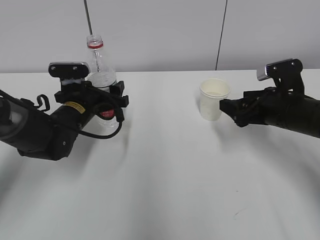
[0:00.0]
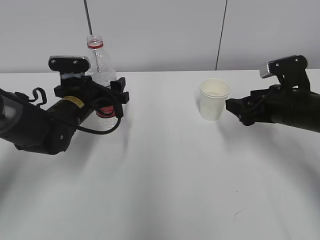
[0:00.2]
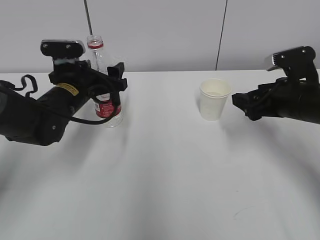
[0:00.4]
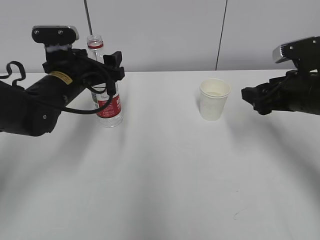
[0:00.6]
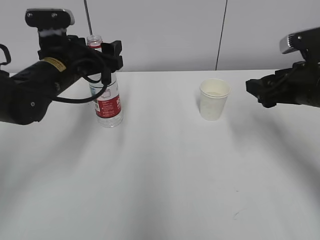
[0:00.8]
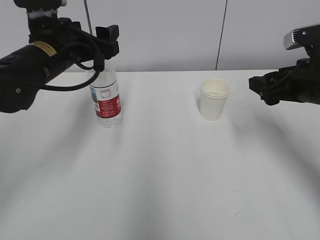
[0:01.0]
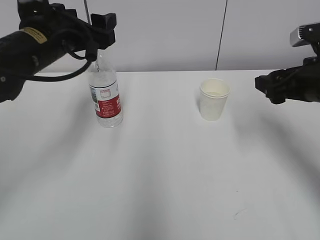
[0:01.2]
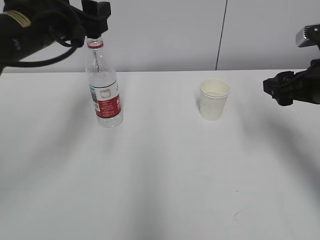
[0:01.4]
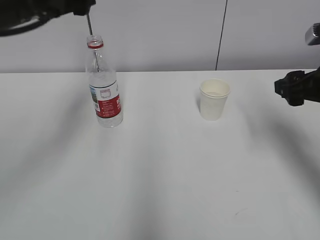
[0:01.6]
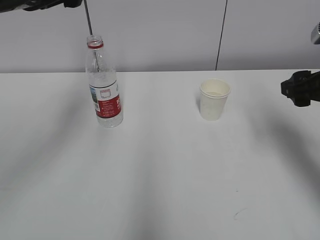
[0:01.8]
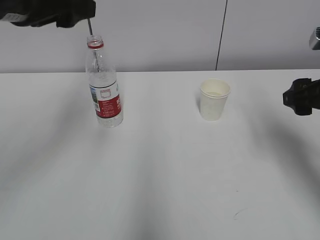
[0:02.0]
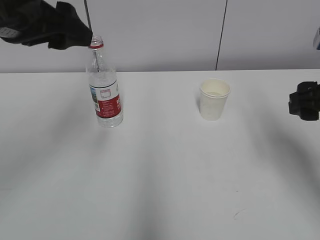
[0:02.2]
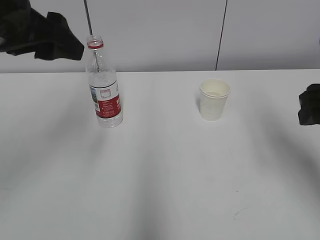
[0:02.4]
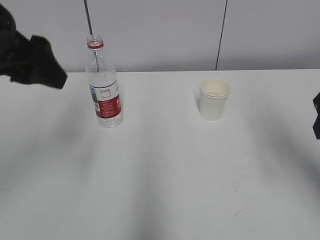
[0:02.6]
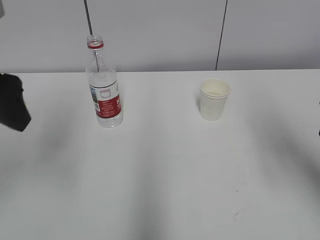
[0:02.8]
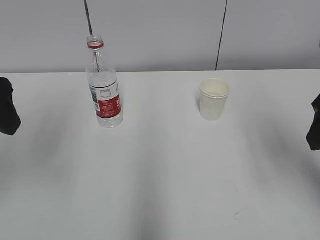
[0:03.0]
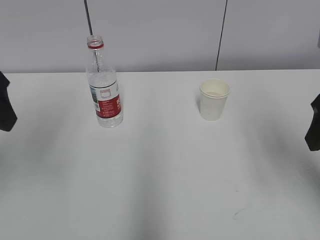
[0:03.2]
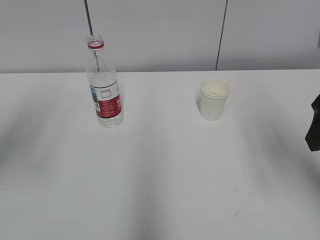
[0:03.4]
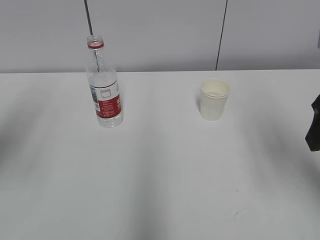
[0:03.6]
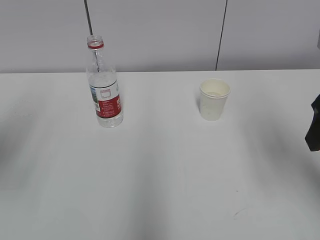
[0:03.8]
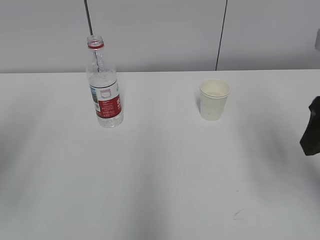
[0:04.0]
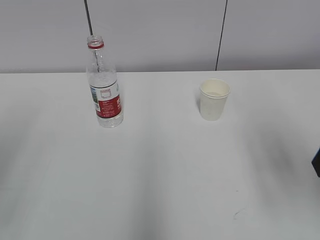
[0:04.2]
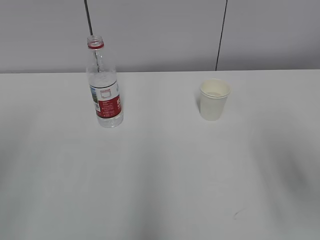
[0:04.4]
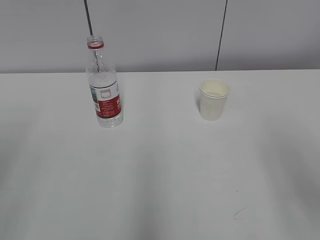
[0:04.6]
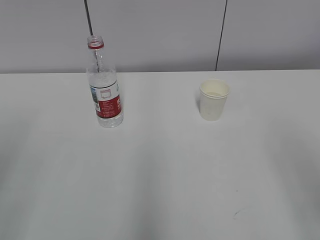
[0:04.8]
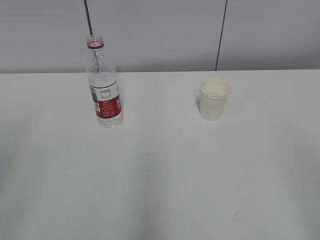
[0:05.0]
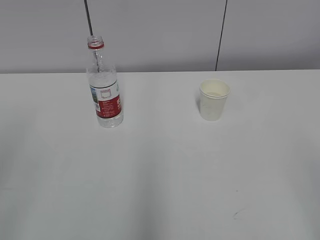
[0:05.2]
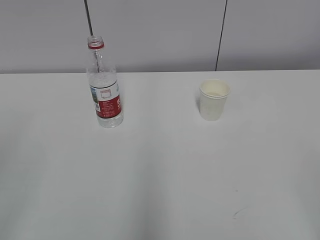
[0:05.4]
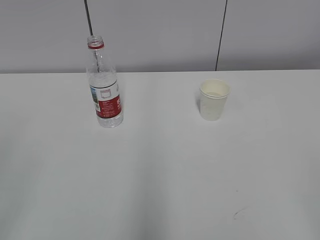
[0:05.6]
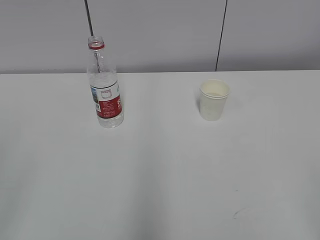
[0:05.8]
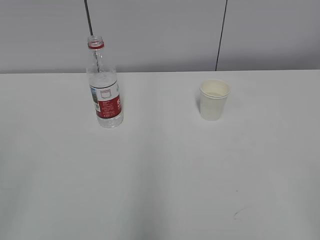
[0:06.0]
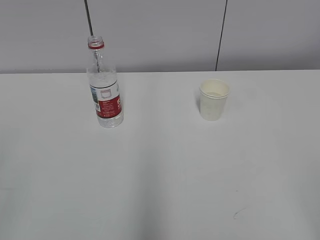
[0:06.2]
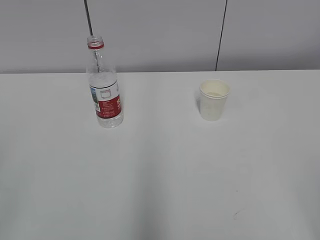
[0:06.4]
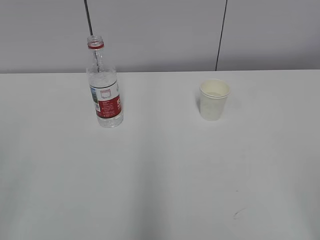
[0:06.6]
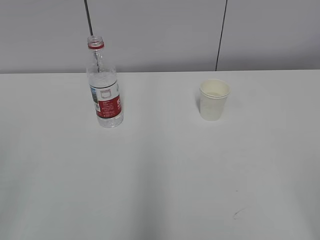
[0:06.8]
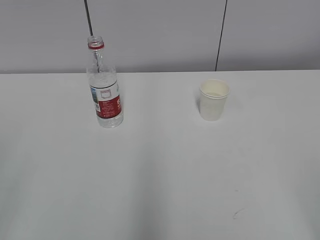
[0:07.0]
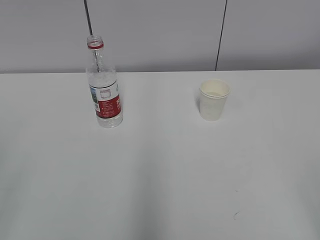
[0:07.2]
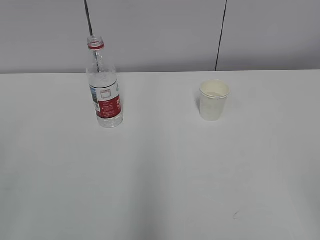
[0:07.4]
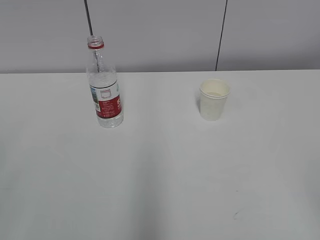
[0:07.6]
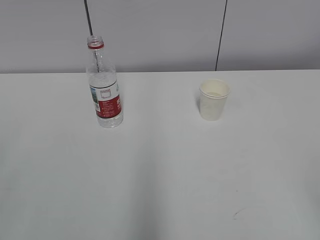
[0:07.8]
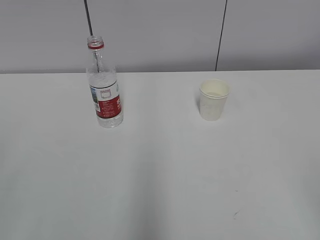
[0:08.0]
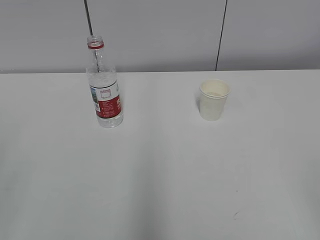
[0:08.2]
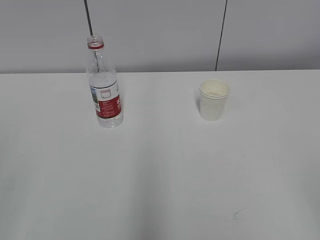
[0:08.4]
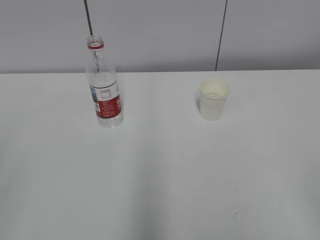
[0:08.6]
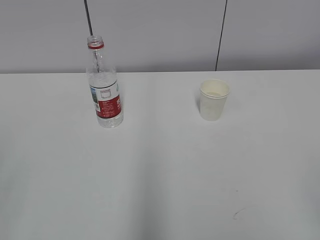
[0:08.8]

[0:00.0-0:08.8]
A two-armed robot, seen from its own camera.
0:00.0 to 0:01.4: The left gripper is displaced upward by about 20 cm, while the right gripper travels upward by some 10 cm.
0:01.4 to 0:03.0: The left gripper shifts about 15 cm backward and to the left. The right gripper travels backward and upward by about 10 cm.
0:03.0 to 0:04.4: The left gripper travels backward and to the left by some 15 cm; the right gripper travels backward by approximately 5 cm.
0:04.4 to 0:05.8: The right gripper goes about 15 cm backward.
0:07.4 to 0:08.8: Both grippers stay about where they are.

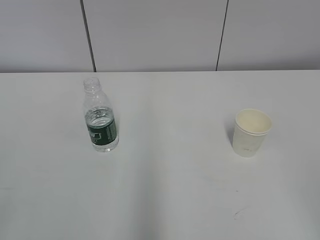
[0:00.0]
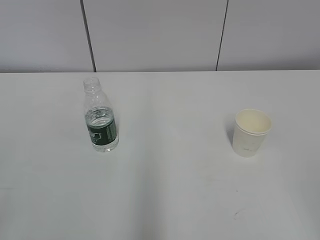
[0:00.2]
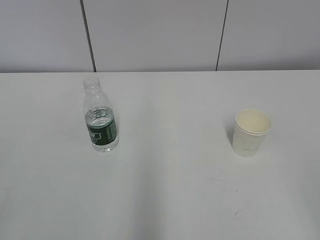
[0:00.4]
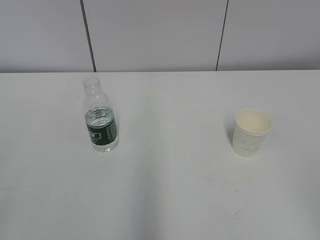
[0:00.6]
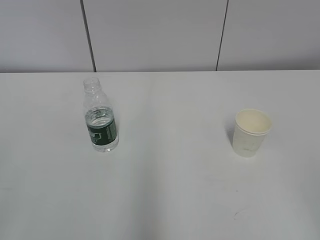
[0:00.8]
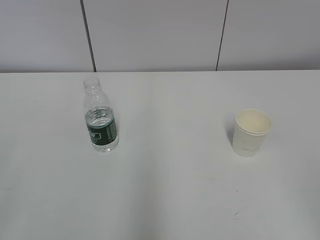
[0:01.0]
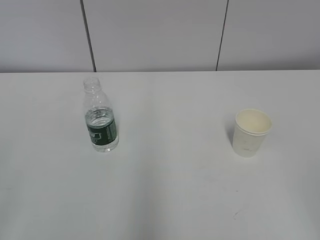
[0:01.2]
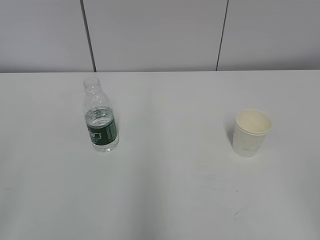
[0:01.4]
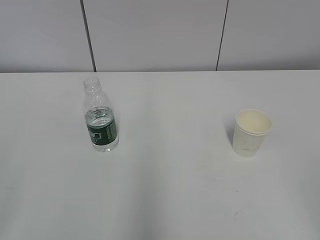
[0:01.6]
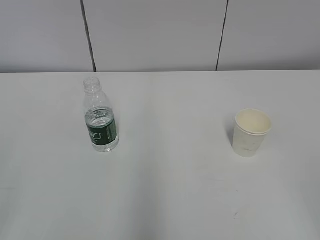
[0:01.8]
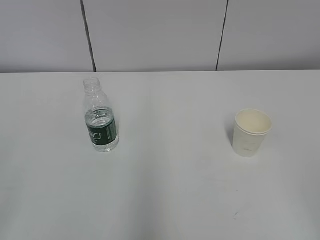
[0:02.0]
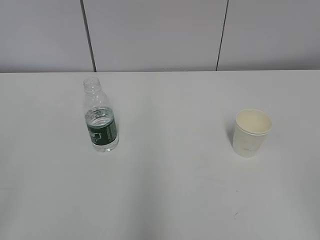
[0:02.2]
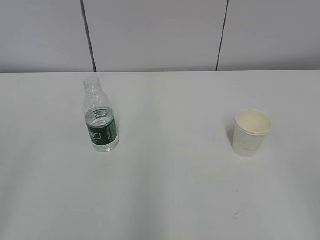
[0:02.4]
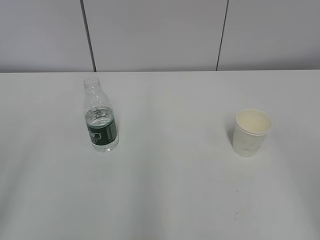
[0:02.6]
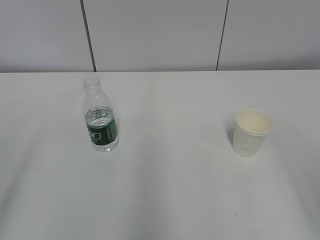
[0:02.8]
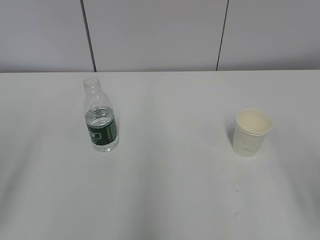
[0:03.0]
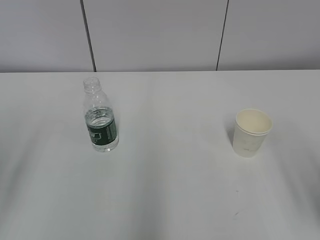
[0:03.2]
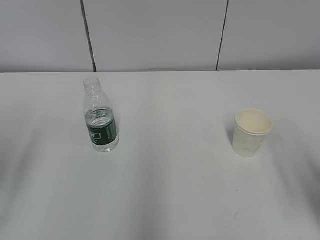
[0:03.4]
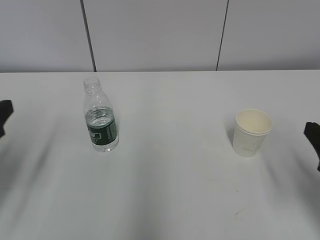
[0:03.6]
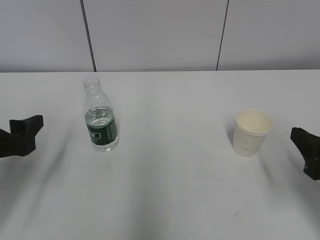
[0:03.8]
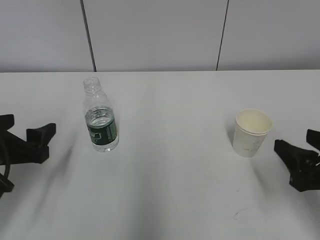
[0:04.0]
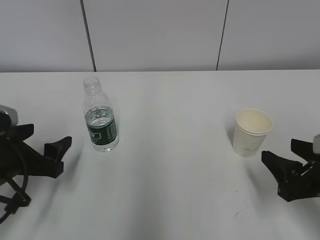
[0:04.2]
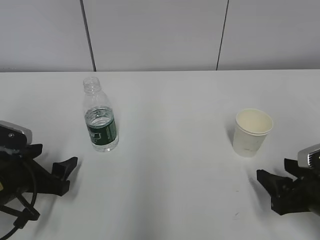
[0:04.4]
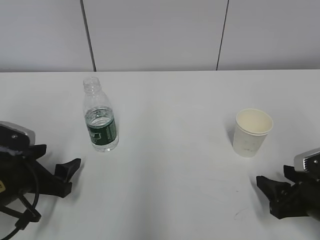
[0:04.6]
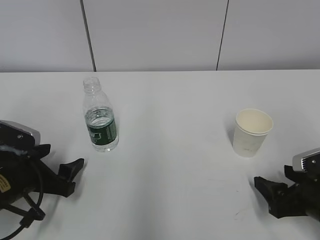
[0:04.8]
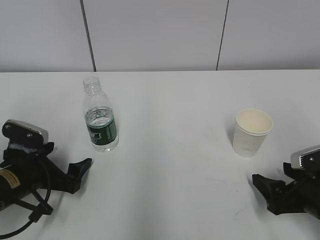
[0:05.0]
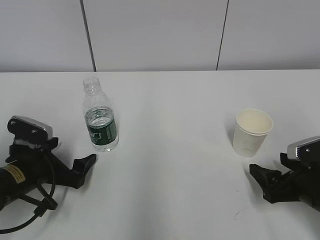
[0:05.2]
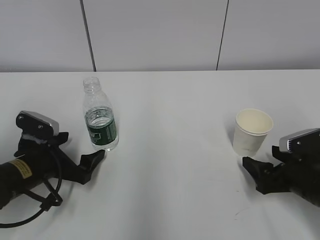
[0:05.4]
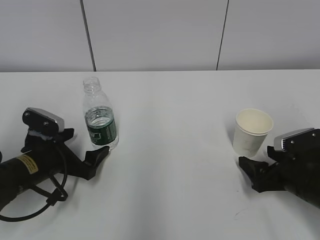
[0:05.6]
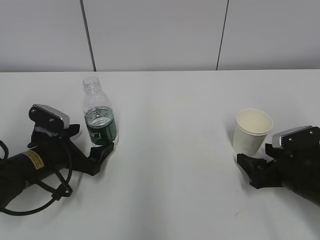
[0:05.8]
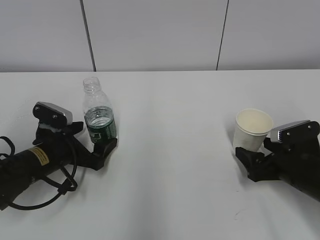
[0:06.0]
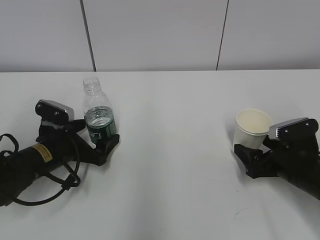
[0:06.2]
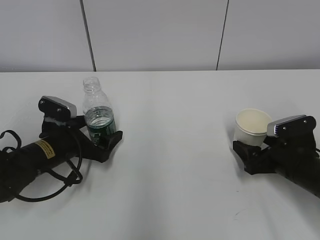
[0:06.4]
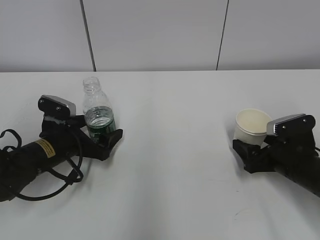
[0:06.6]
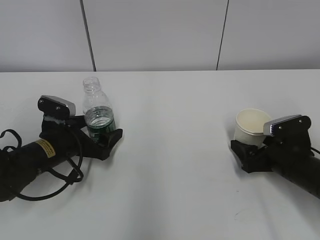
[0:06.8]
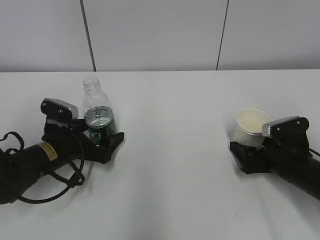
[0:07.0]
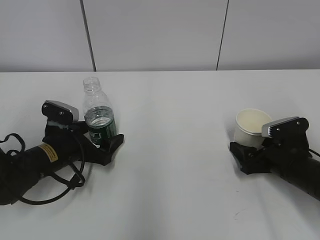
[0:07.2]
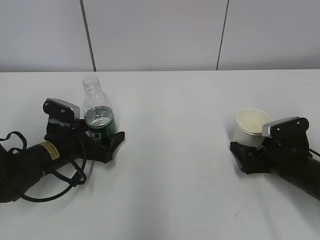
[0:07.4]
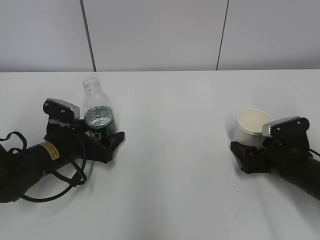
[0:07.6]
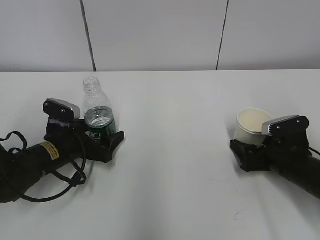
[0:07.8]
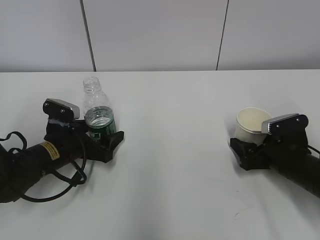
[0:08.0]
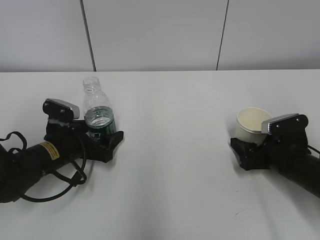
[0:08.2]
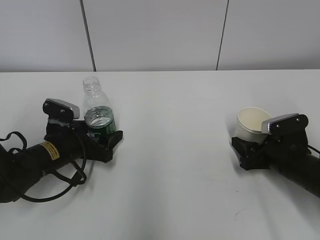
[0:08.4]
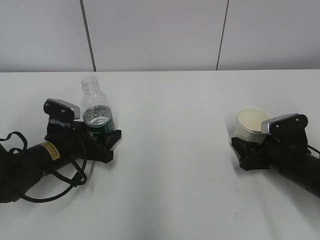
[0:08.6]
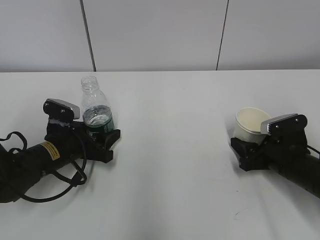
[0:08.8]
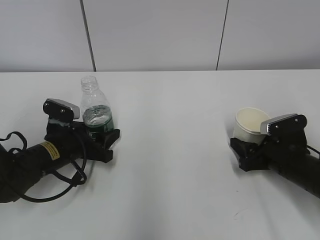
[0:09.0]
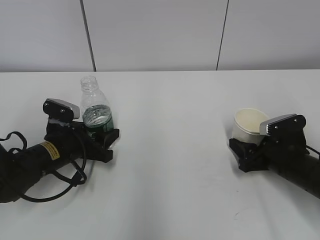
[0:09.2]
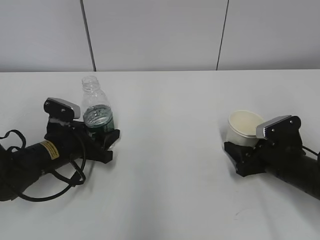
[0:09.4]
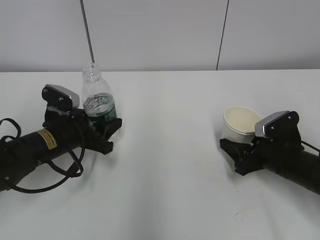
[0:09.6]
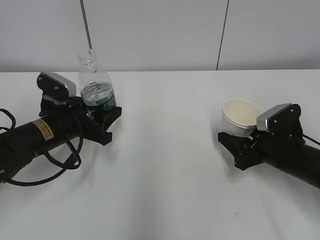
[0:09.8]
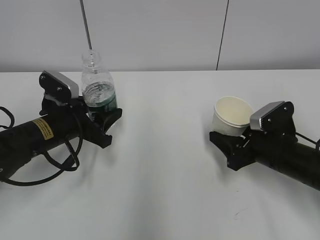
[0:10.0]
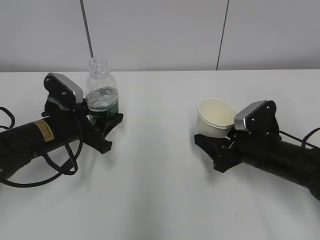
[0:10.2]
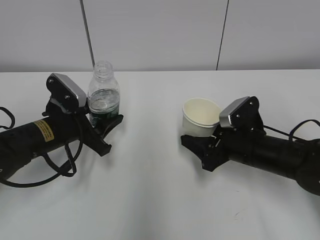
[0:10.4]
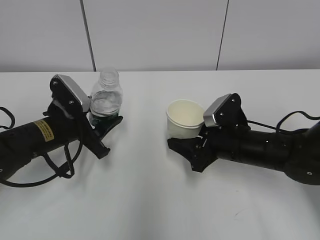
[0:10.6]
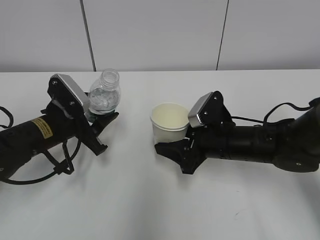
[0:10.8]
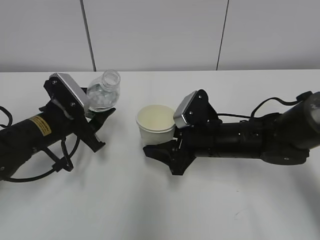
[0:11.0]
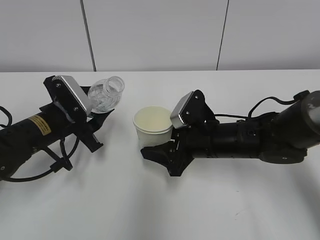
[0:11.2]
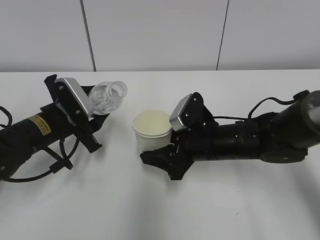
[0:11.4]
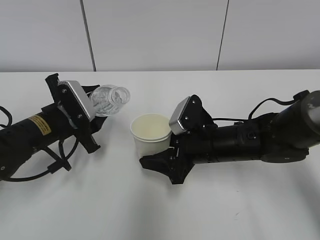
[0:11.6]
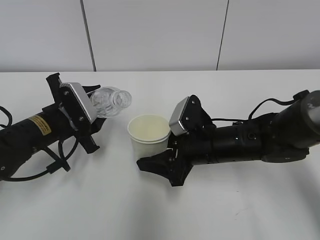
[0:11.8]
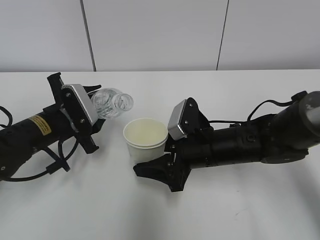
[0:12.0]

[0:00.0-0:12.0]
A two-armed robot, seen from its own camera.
Step, 0:00.0 to 0:07.4: Grab the paper cup with the right hand.
Step, 0:07.8 to 0:11.6: Lift the paper cup with the right hand.
0:03.0 to 0:04.4: The two grippers go about 20 cm downward and forward.
0:04.4 to 0:06.0: The two grippers go about 5 cm forward. The left gripper opens up, while the right gripper opens its fingers.
0:06.0 to 0:07.6: The grippers stay close to where they were, moving slightly.
0:07.6 to 0:09.0: The left gripper closes, while the right gripper closes its fingers.
0:09.0 to 0:10.4: The right gripper heads to the left, covering roughly 10 cm. The left gripper heads upward, covering approximately 5 cm.
0:10.4 to 0:12.0: The right gripper is displaced to the left by some 10 cm.

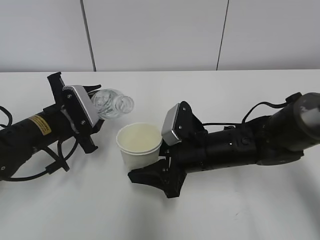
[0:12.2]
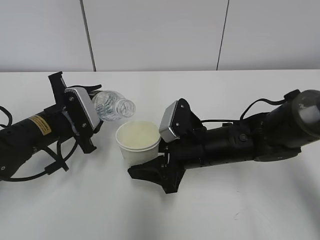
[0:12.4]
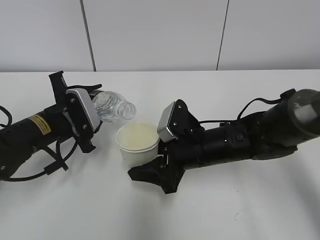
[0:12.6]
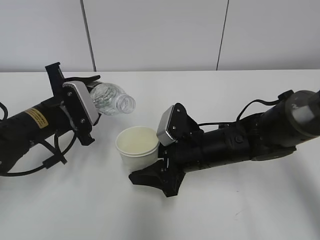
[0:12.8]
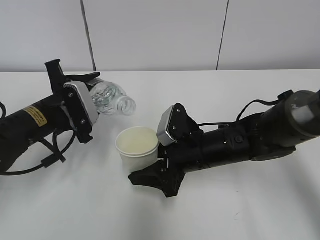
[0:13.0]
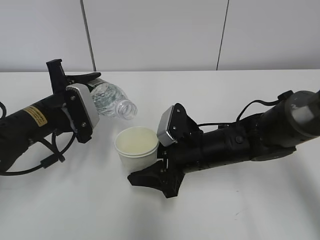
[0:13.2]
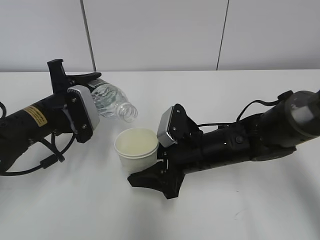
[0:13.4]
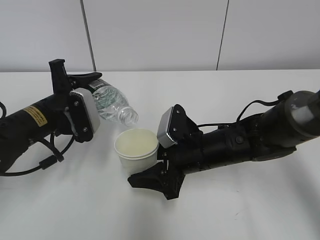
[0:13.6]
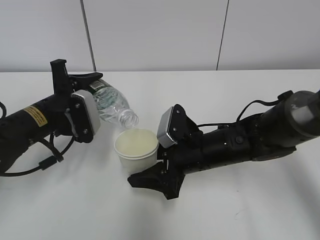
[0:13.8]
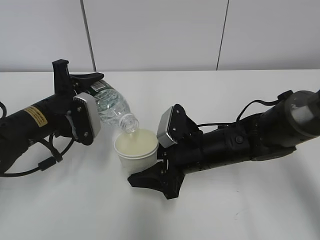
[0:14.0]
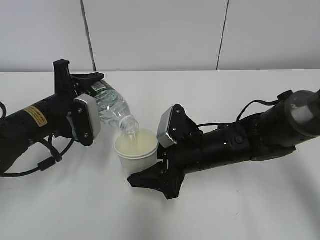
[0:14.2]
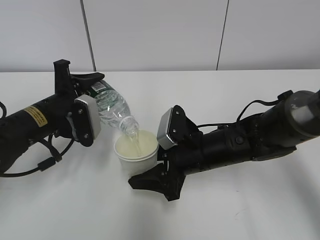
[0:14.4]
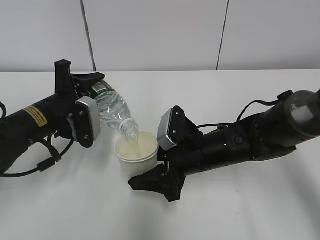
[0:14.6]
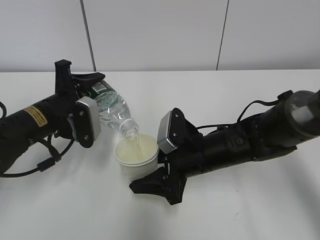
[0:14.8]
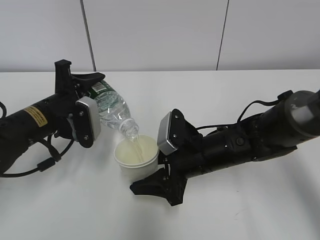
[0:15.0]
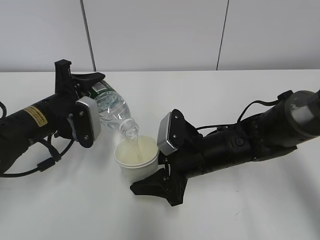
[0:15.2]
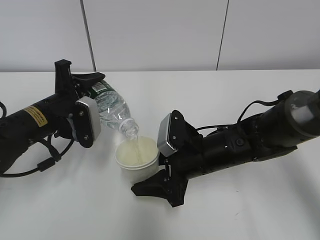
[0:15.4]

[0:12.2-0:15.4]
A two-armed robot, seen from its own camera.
0:13.8 to 0:15.4: There are only small adjustments of the grippers.
